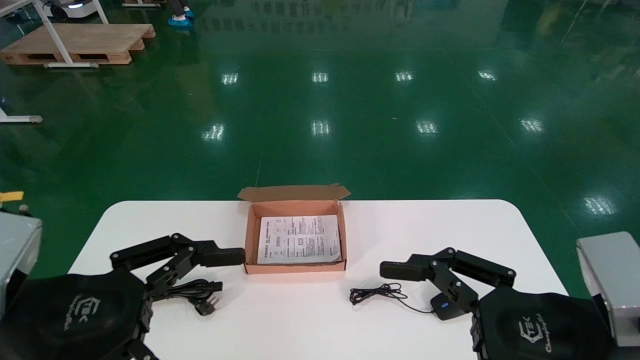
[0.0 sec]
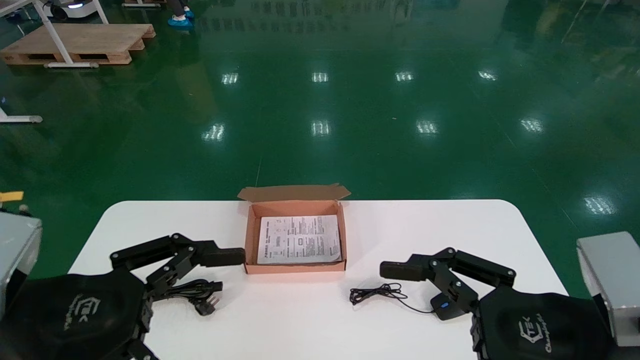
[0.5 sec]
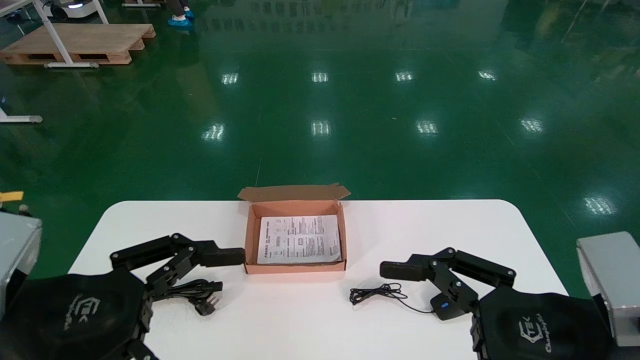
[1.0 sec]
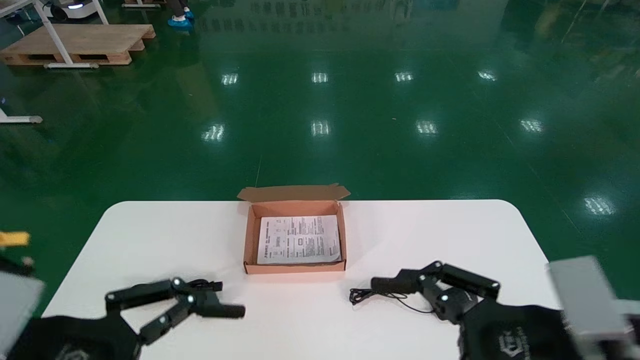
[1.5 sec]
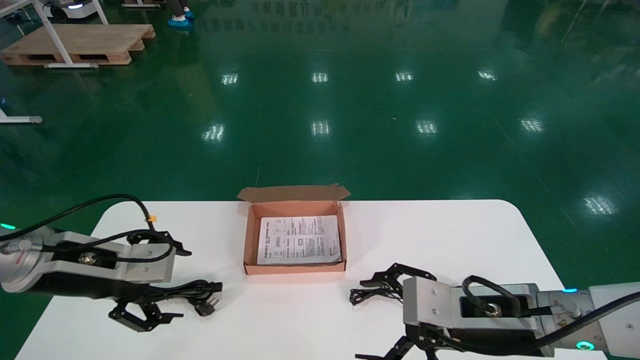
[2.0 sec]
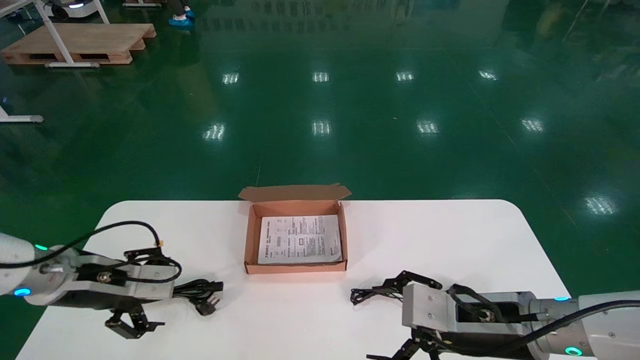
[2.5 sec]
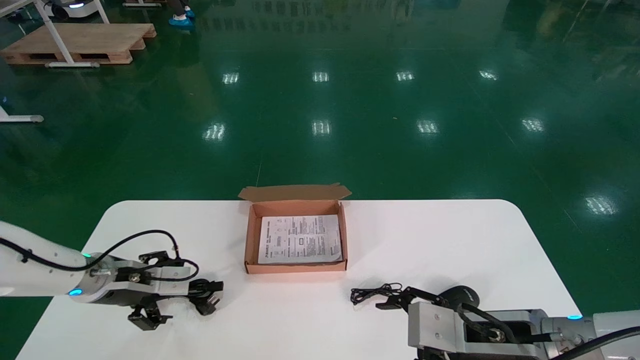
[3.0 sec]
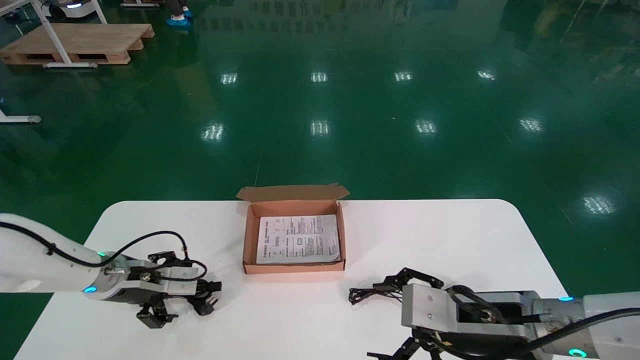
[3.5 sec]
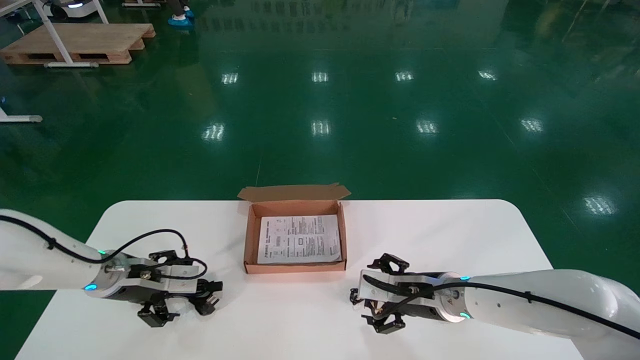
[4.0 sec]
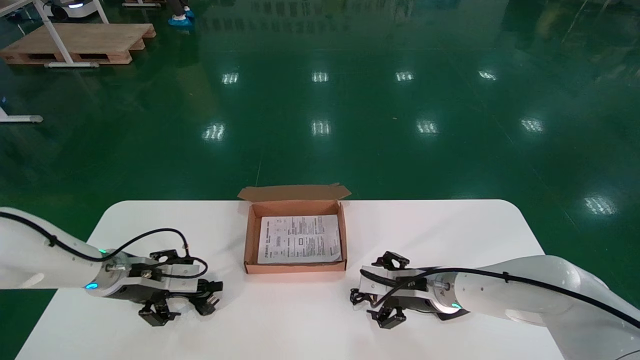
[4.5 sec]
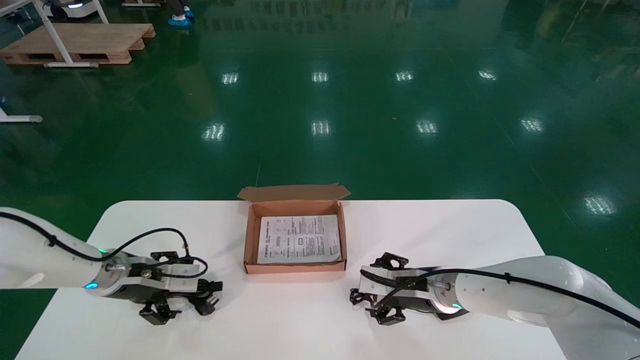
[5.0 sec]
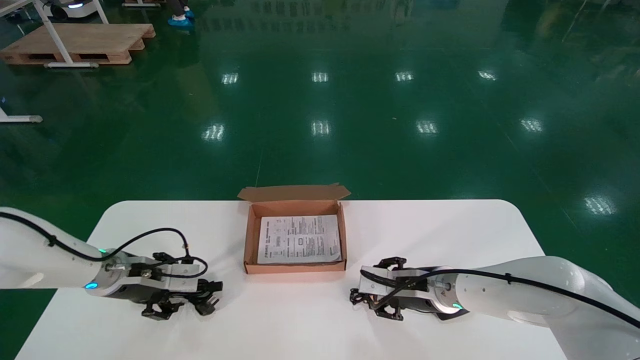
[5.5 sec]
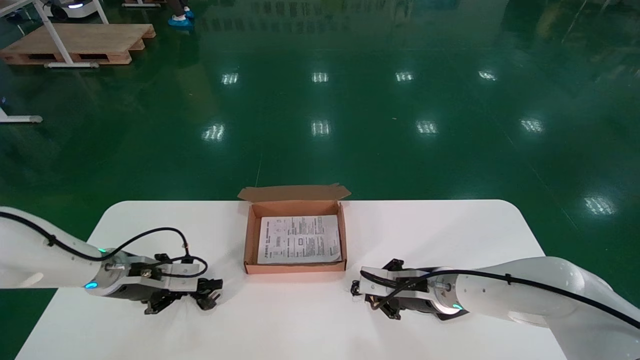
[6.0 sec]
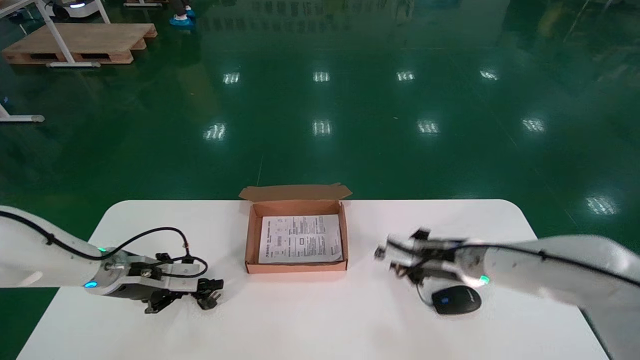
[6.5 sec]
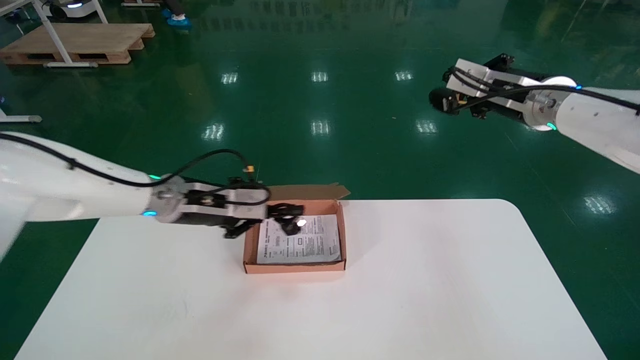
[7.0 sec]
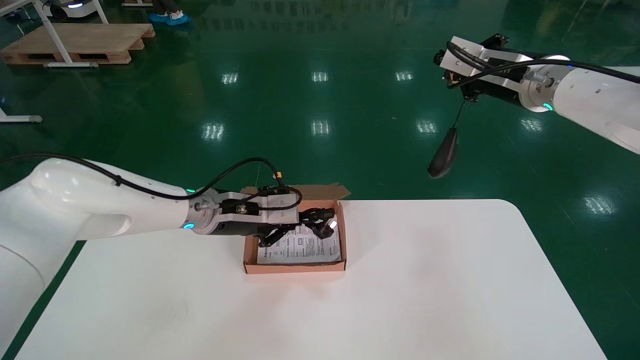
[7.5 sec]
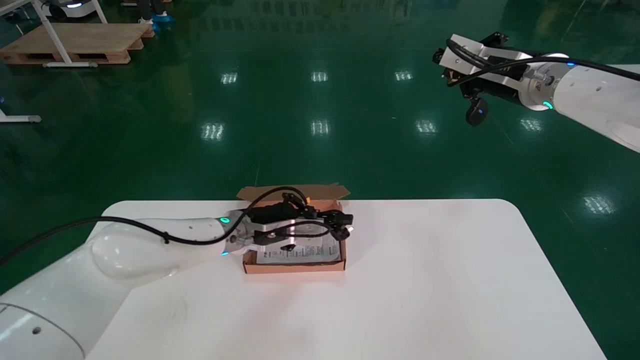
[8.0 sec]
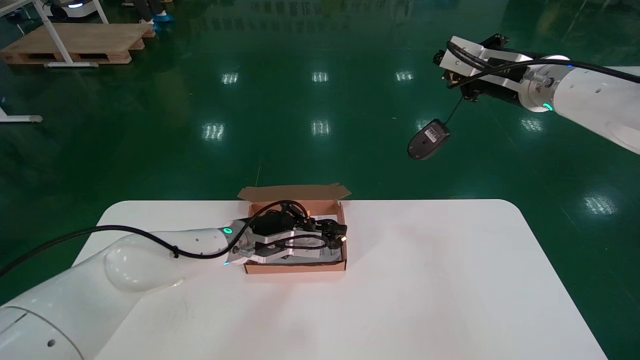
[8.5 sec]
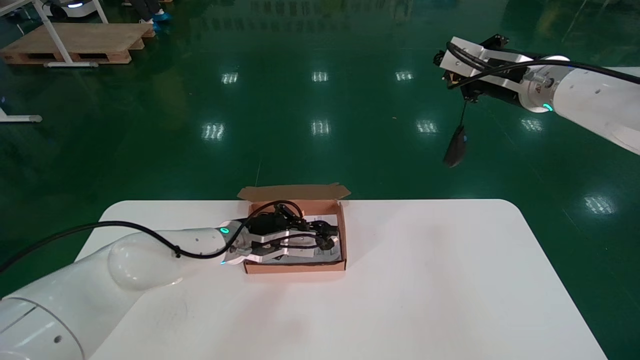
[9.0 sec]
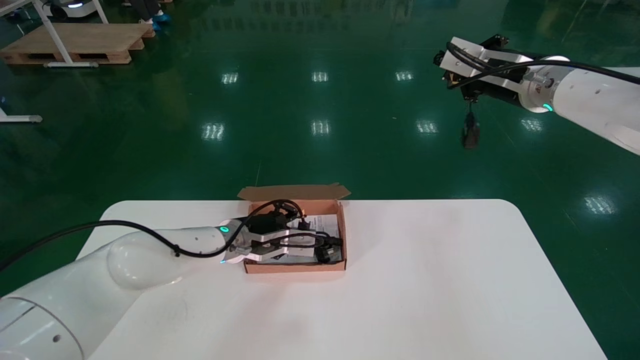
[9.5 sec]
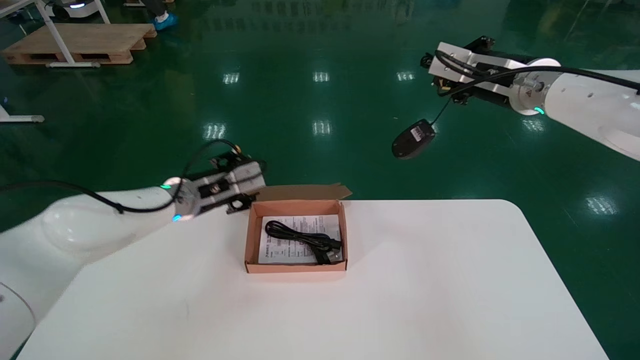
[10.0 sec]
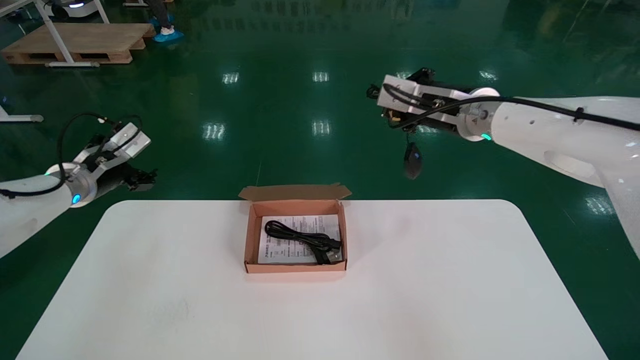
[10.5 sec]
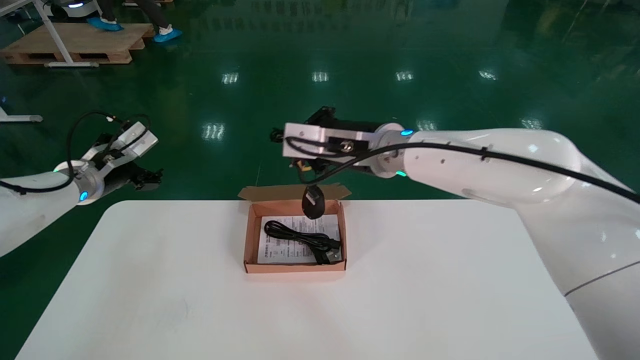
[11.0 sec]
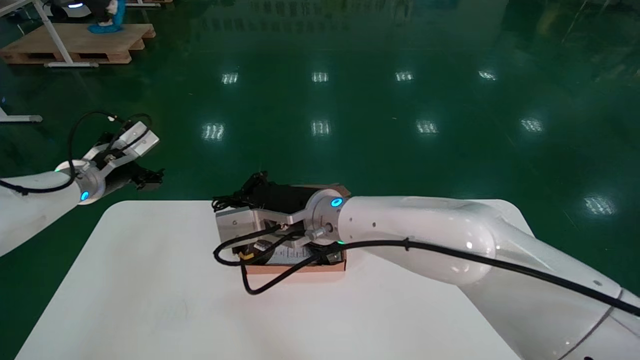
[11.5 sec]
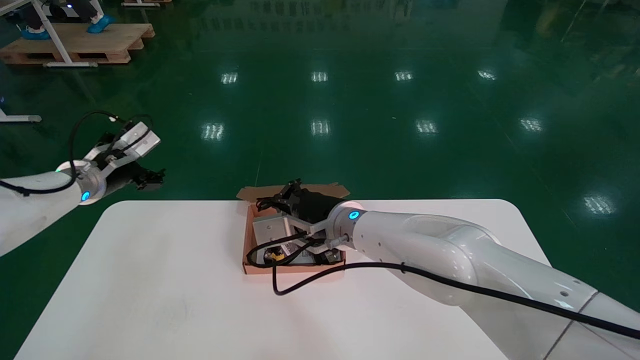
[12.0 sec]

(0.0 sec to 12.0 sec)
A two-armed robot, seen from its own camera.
Step, 2.0 sec - 5.5 sec: Simultaneously pick up the mouse and power cord from the accessory packaging area.
0.0 sec - 2.0 sec: Both grippers travel together forward, roughly 10 cm.
2.0 sec - 4.0 sec: Both grippers travel together forward and downward, about 15 cm.
4.0 sec - 6.0 sec: The right gripper closes. The left gripper closes its fingers.
6.0 sec - 8.0 sec: The left gripper shifts about 20 cm to the right, while the right gripper is displaced upward by some 30 cm.
8.0 sec - 10.0 sec: The left gripper goes about 10 cm to the left, and opens.
10.0 sec - 12.0 sec: The left gripper goes roughly 15 cm to the left, and opens its fingers; the right gripper heads to the left and downward, covering approximately 30 cm.

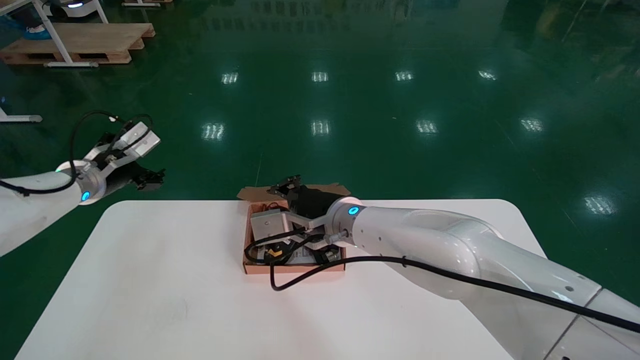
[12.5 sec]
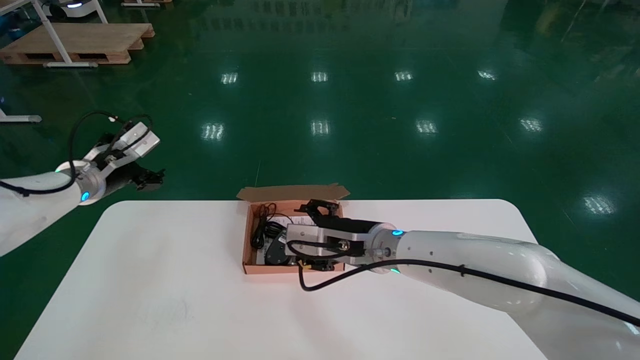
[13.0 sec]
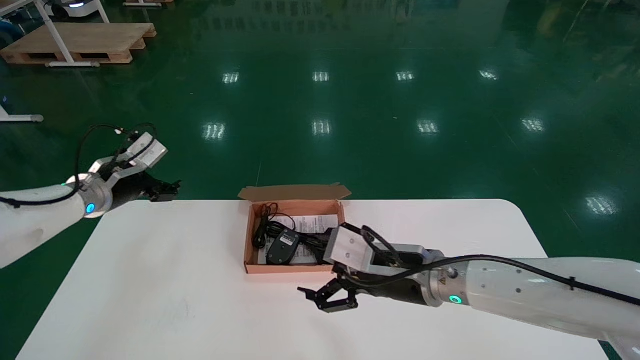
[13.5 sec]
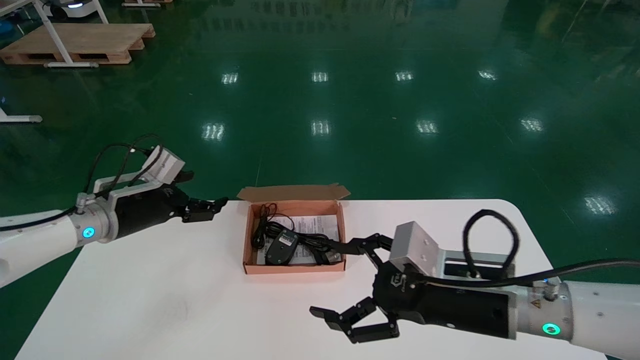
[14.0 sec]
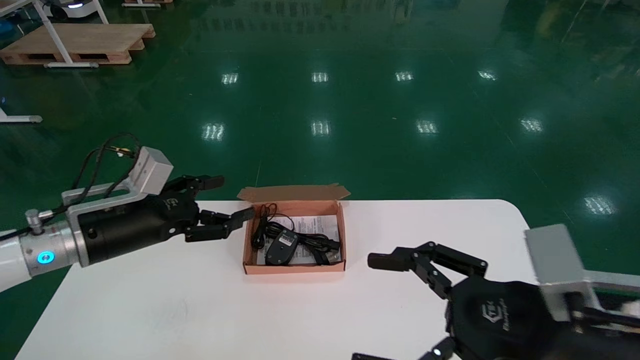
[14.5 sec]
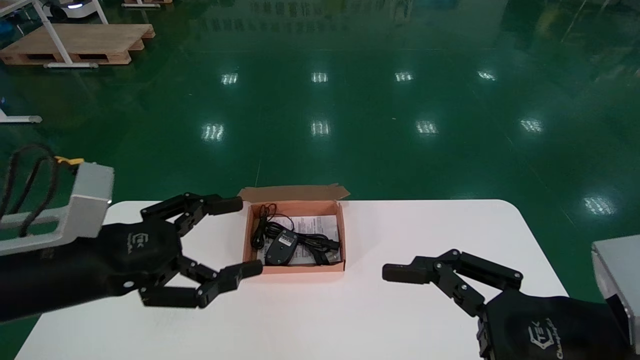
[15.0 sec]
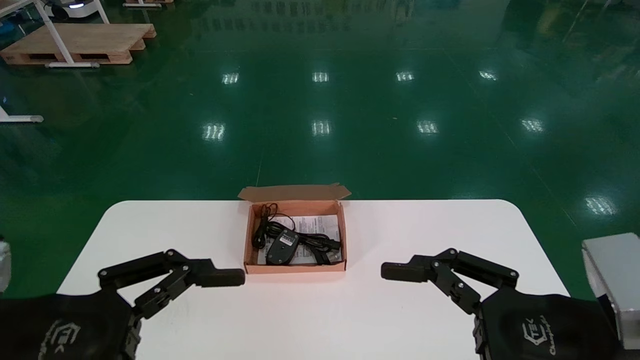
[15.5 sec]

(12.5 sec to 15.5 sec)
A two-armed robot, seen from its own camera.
12.5 sec - 14.0 sec: The right gripper is displaced to the right and backward by about 20 cm, and opens. The left gripper travels to the right by some 5 cm.
14.0 sec - 15.5 sec: The left gripper moves backward, about 25 cm. Meanwhile the right gripper travels backward and to the right by roughly 15 cm.
